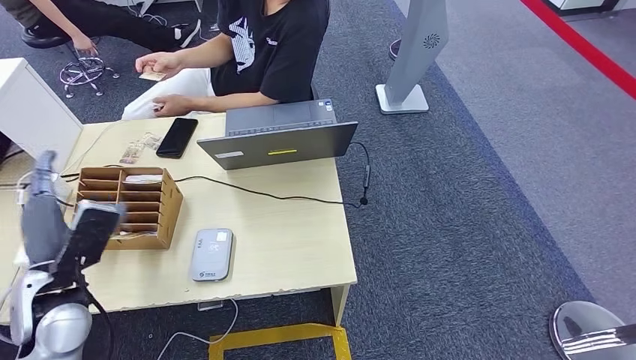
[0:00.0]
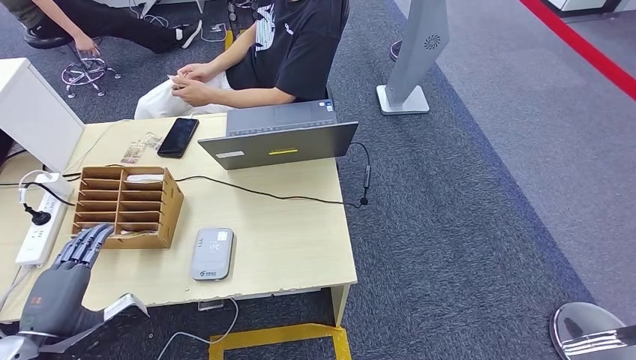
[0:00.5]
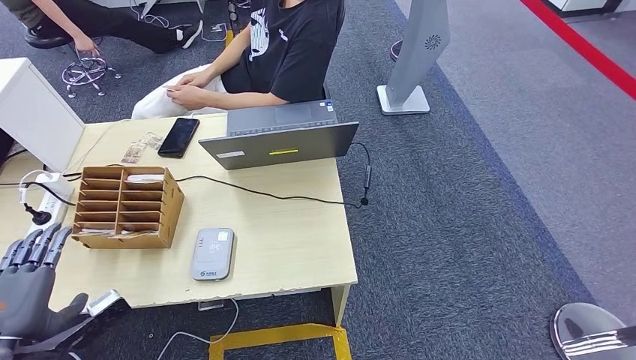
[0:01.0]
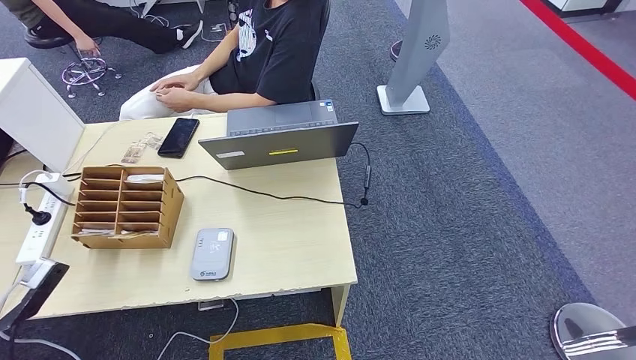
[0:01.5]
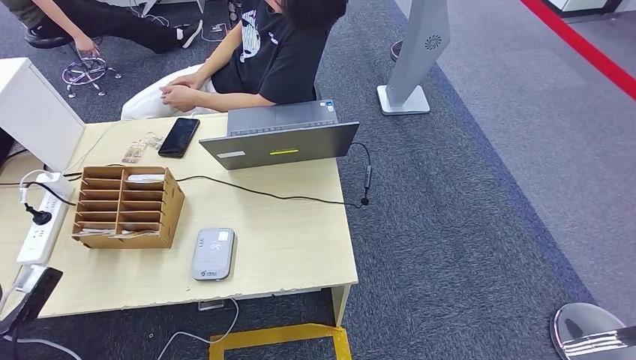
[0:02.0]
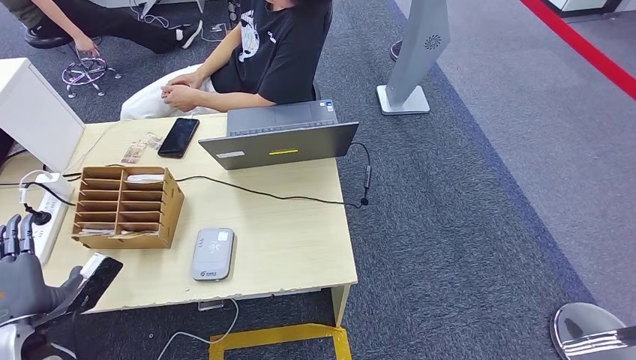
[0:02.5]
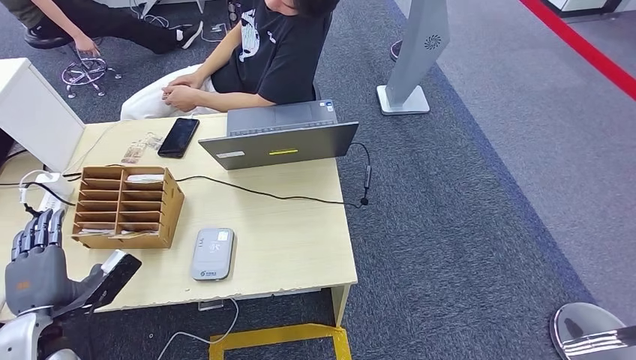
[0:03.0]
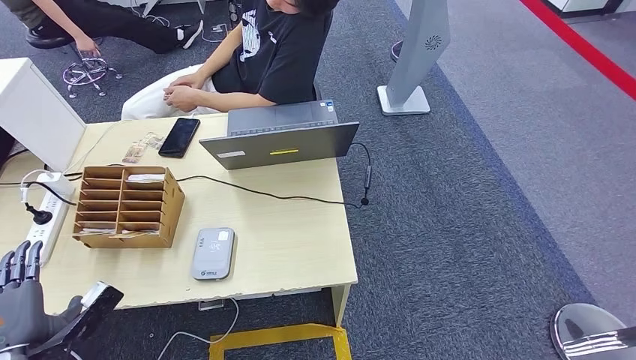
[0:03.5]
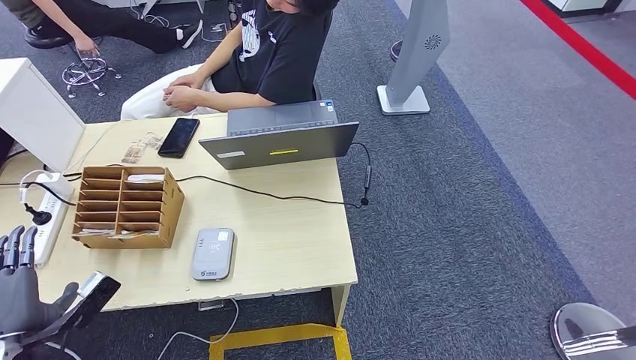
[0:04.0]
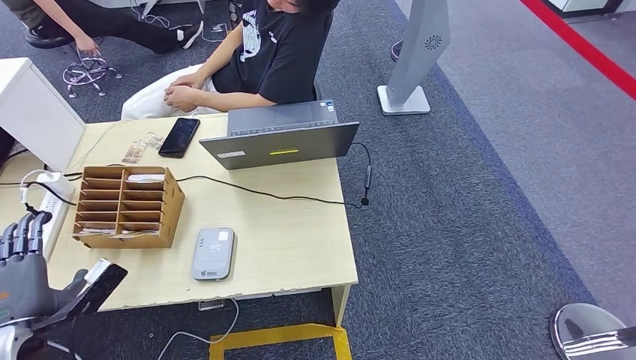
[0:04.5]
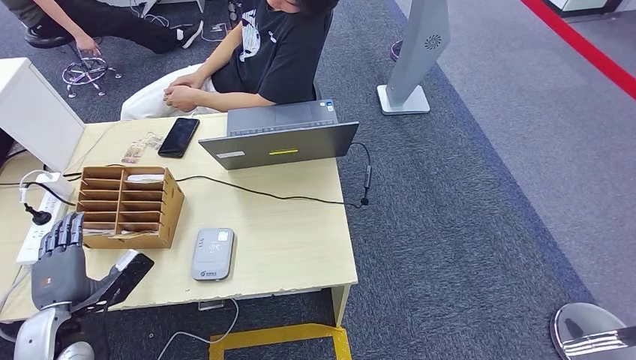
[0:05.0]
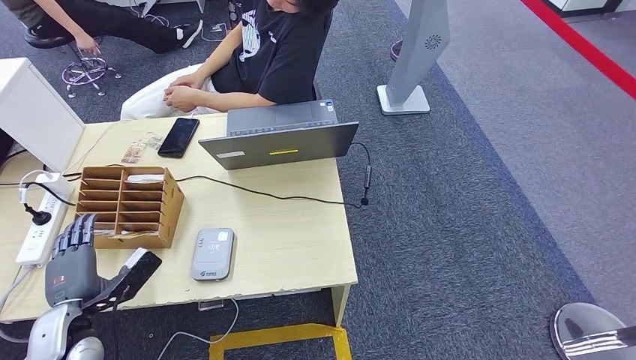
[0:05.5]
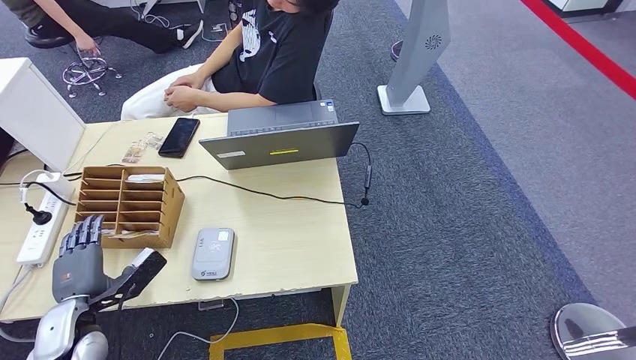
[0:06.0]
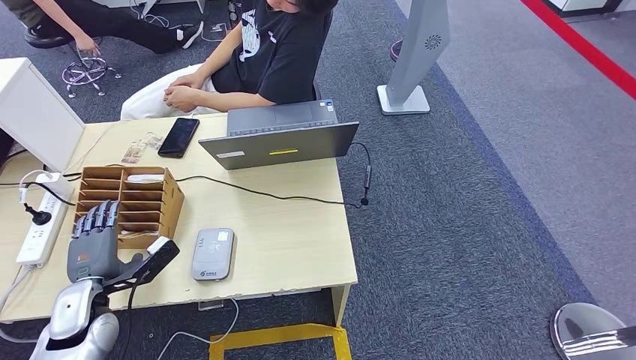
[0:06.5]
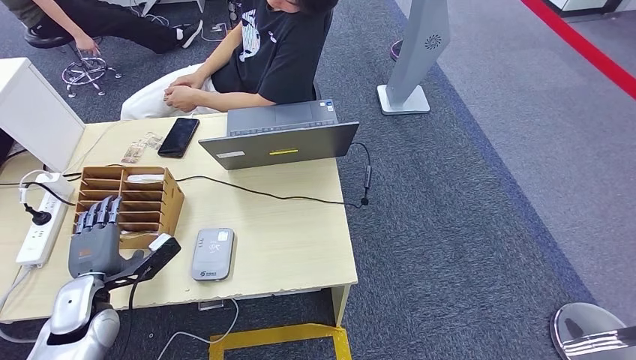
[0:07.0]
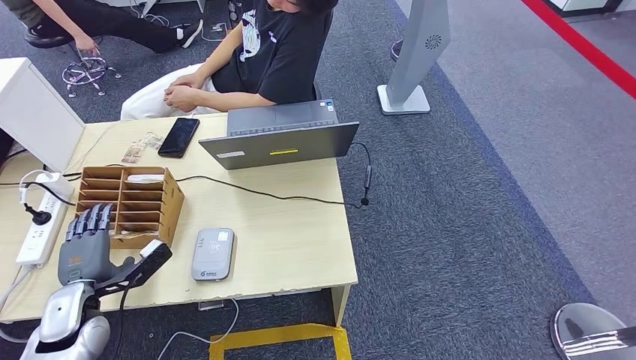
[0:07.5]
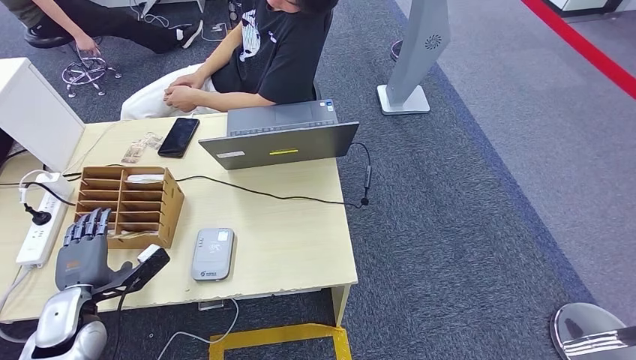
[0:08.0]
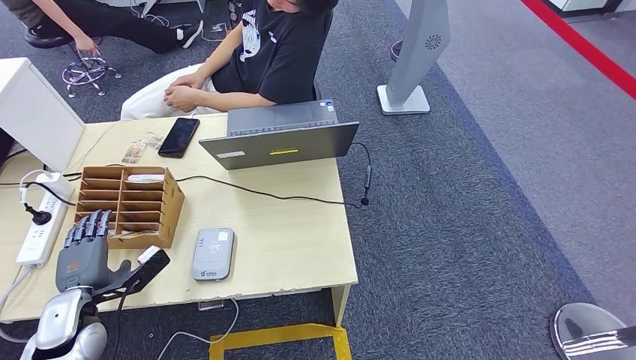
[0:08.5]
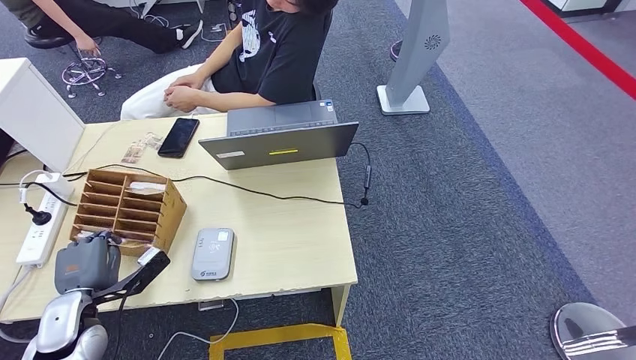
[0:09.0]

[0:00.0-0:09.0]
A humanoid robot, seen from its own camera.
0:00.0 to 0:02.0: The left hand goes some 15 cm to the left, backward and downward.
0:02.0 to 0:04.5: The left hand shifts some 5 cm to the right.
0:04.5 to 0:07.0: The left hand travels forward and to the right by roughly 10 cm.
0:07.0 to 0:09.0: The hands make only small movements.

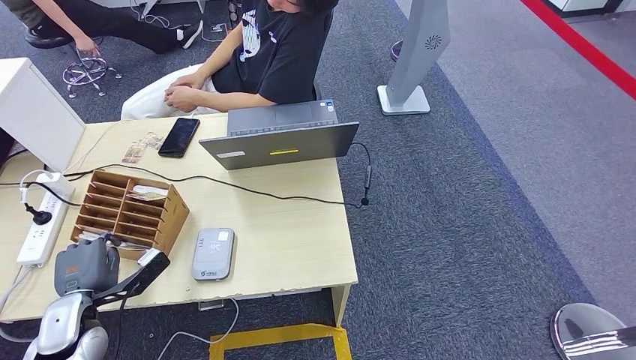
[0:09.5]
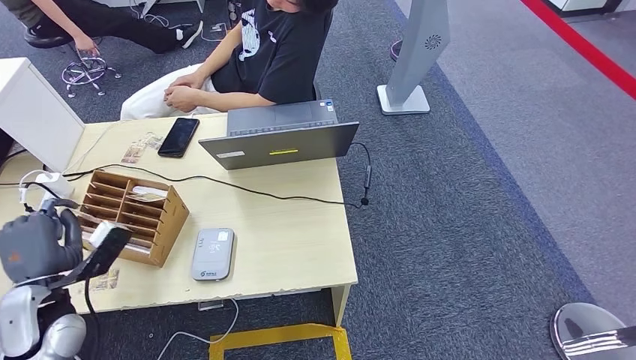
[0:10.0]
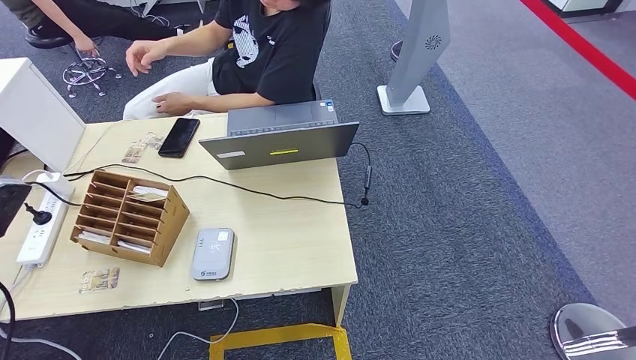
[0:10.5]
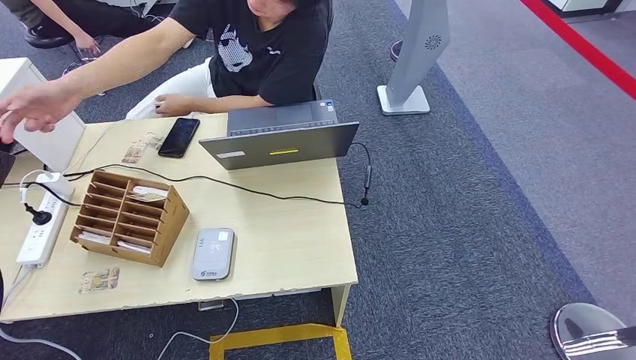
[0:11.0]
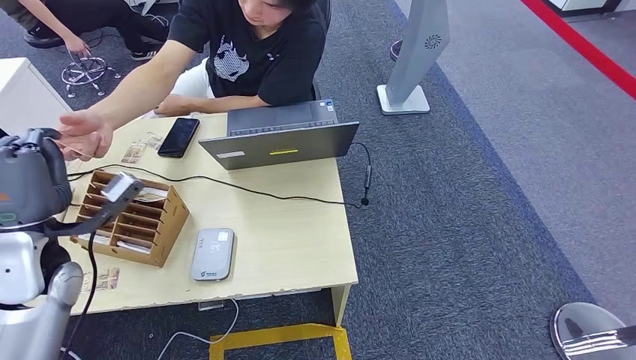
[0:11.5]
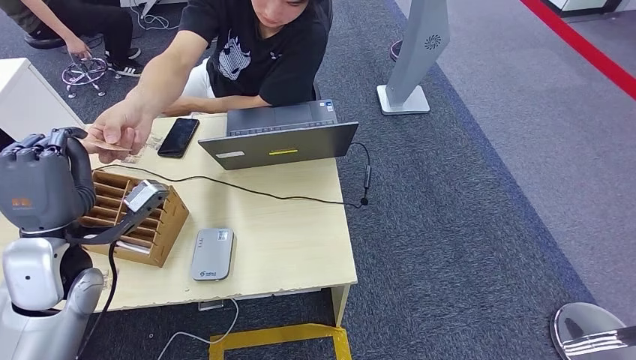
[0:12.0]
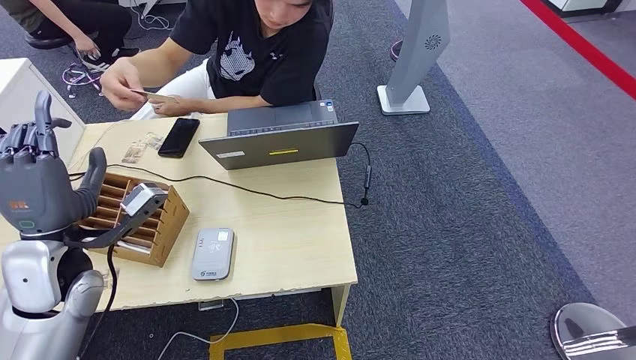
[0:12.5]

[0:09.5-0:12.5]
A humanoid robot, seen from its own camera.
Step, 0:10.5 to 0:12.5: Hand the room key to the person.
0:09.5 to 0:11.0: The left hand shifts roughly 20 cm upward and to the left.
0:11.0 to 0:12.5: The left hand goes roughly 15 cm to the right.
